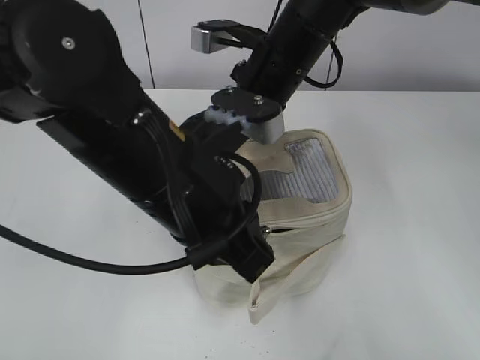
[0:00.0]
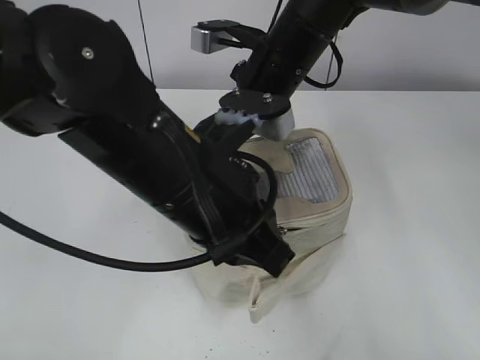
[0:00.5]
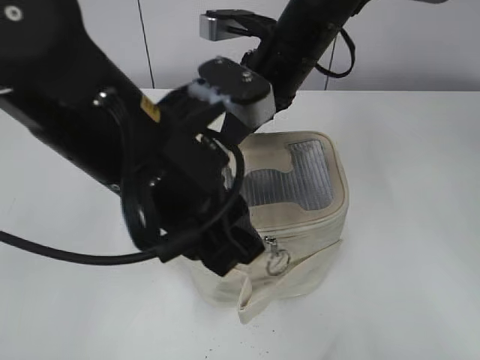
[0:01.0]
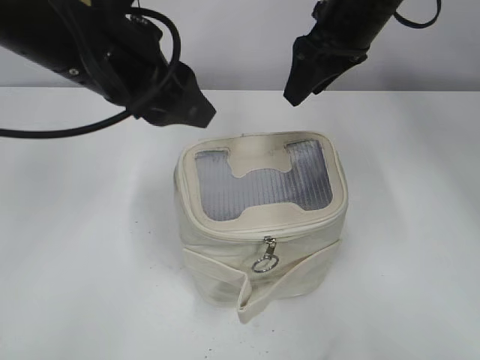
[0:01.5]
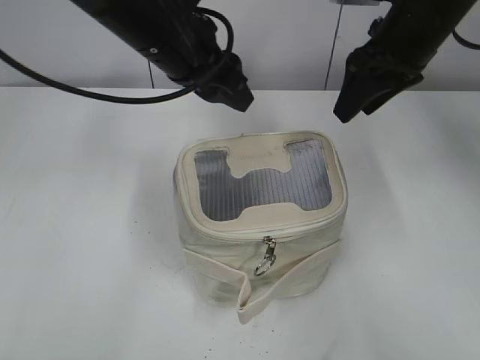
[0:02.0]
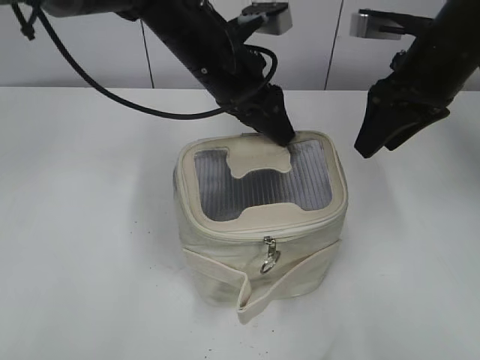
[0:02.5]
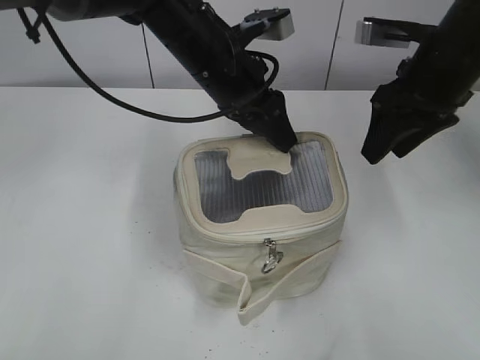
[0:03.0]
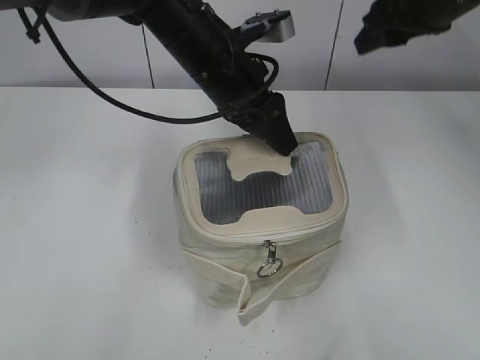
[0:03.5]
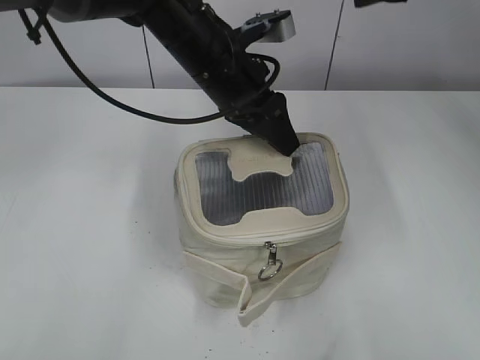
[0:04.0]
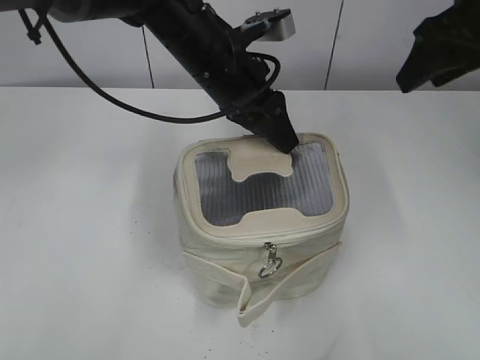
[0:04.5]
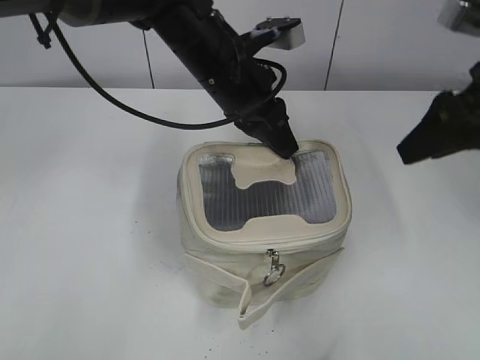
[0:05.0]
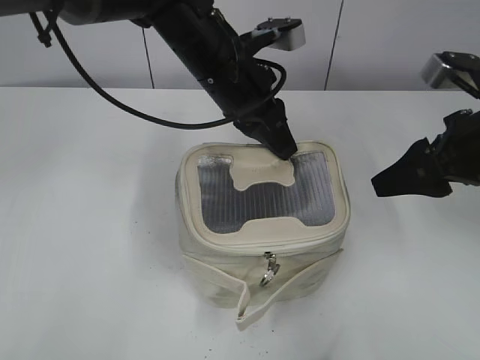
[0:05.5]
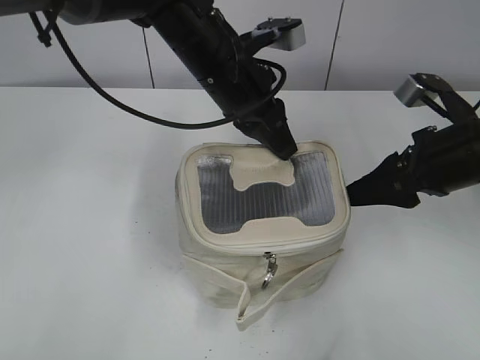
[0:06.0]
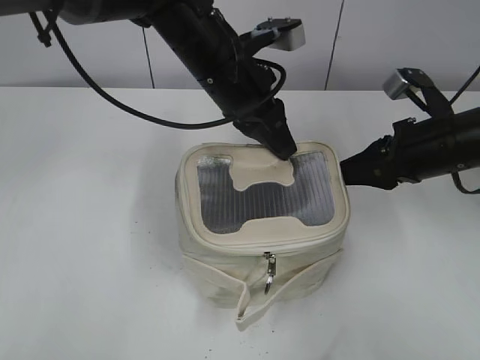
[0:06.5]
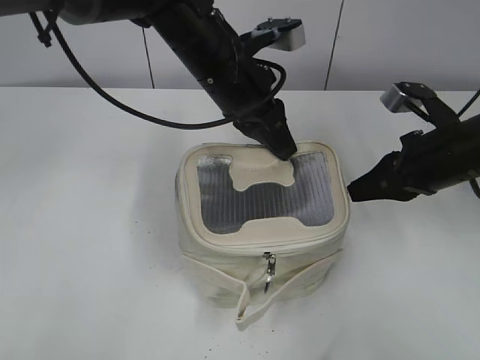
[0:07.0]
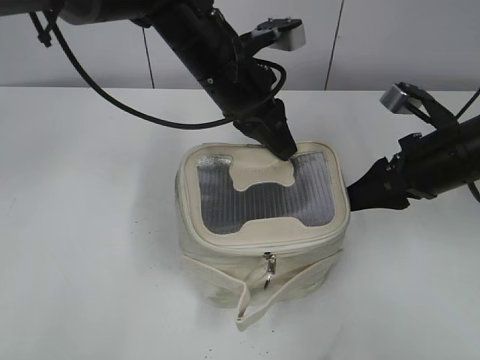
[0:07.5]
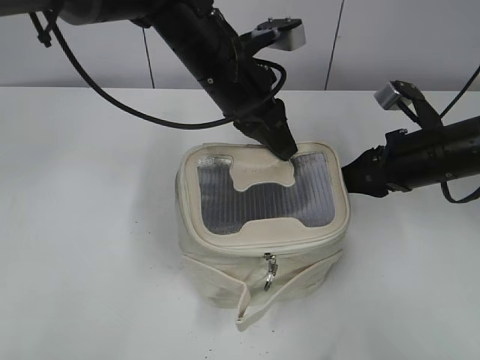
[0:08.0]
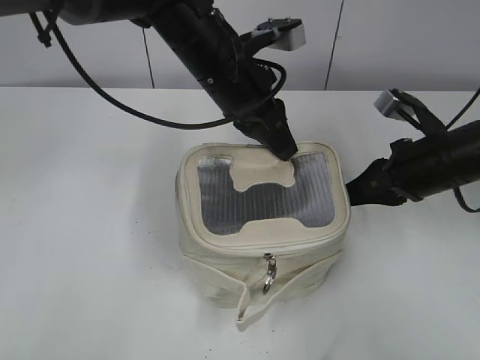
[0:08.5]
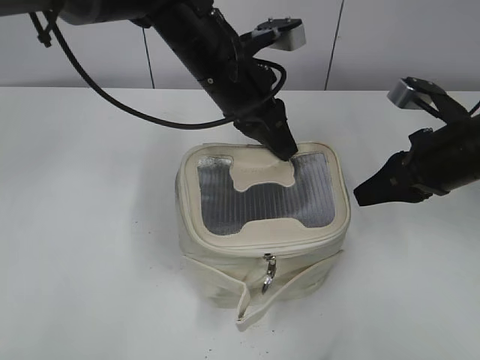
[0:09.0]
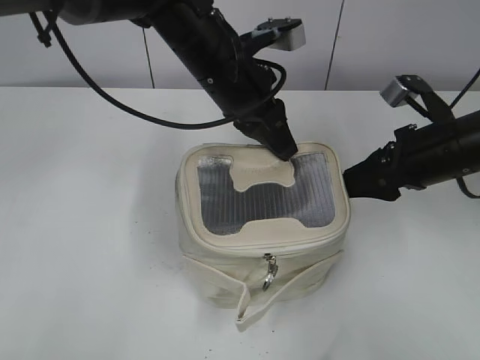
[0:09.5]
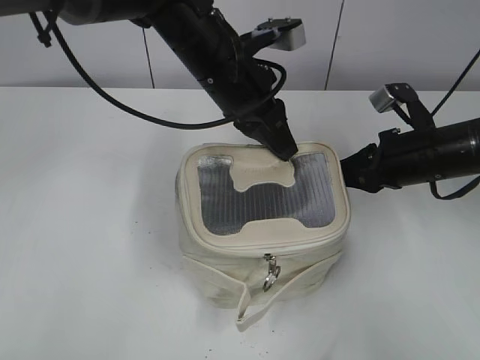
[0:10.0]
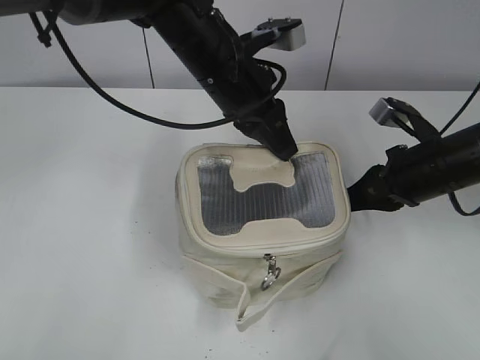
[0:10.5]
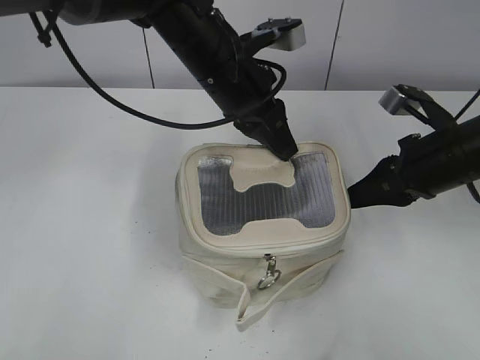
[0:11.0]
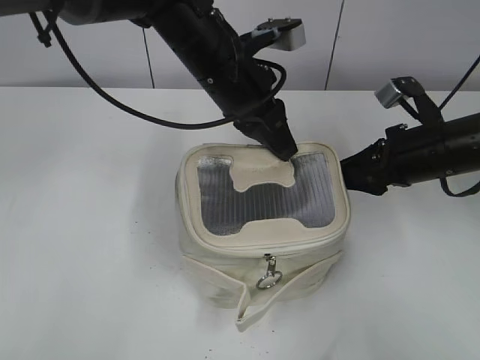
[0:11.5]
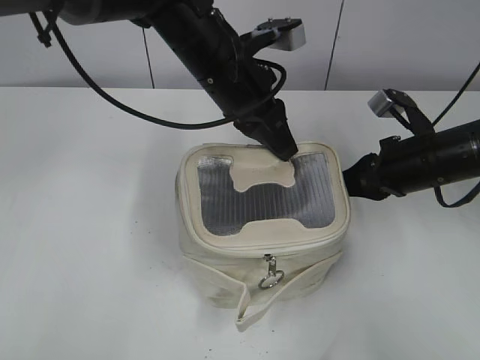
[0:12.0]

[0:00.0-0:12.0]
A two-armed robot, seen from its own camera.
0:00.0 to 0:02.0: The right gripper travels to the right by about 15 cm, and opens. Meanwhile the left gripper heads forward, covering approximately 15 cm, and opens its fingers.
0:02.0 to 0:04.0: The right gripper shifts roughly 5 cm upward, while the left gripper is displaced to the right by about 5 cm.
0:04.0 to 0:06.0: The left gripper closes up, while the right gripper shifts approximately 20 cm downward and backward.
0:06.0 to 0:08.0: The right gripper shifts by about 5 cm, and closes, then reopens.
0:08.0 to 0:10.0: The grippers move only a little.
0:10.0 to 0:12.0: The right gripper opens and closes again.

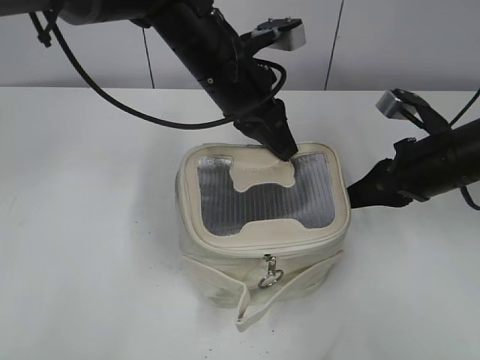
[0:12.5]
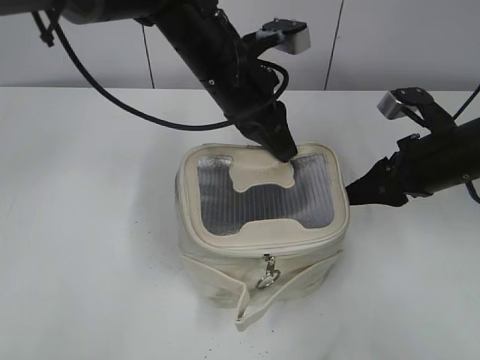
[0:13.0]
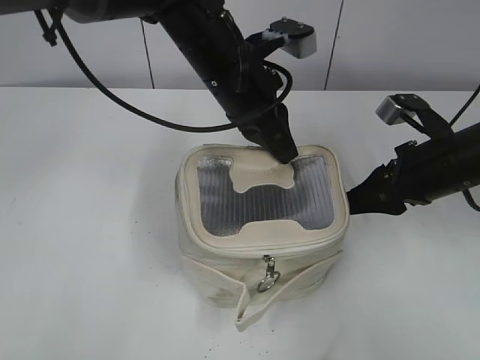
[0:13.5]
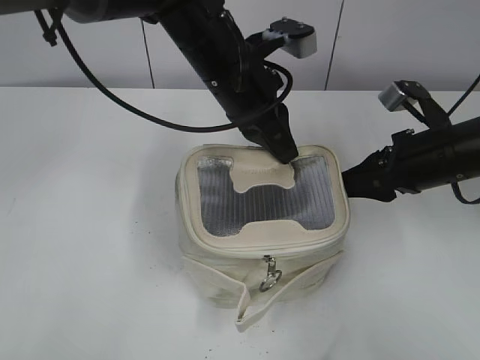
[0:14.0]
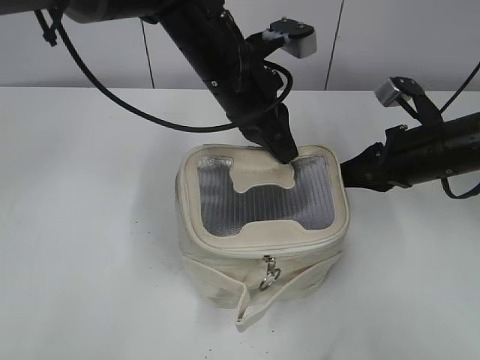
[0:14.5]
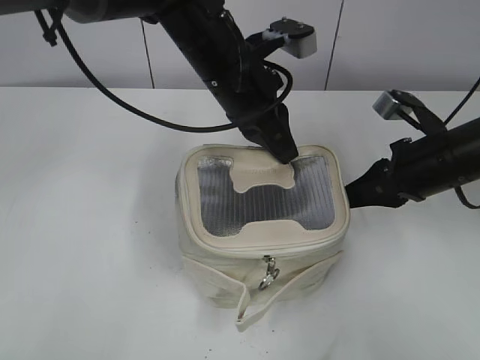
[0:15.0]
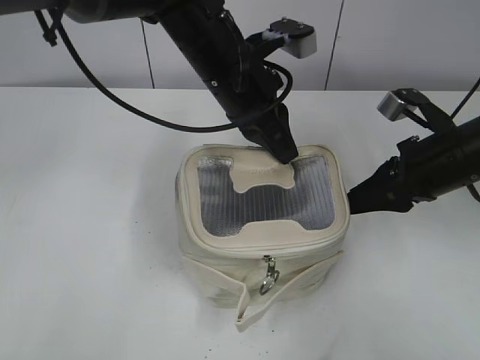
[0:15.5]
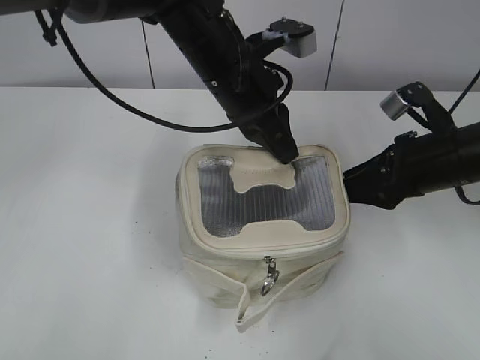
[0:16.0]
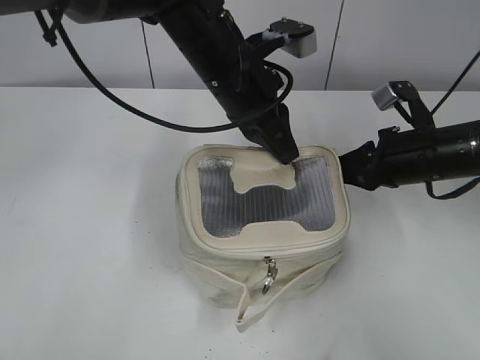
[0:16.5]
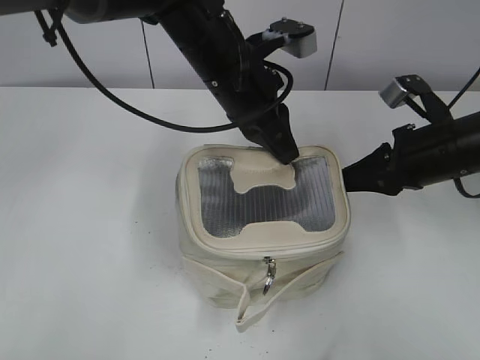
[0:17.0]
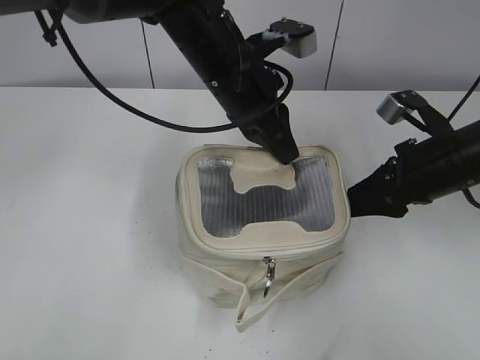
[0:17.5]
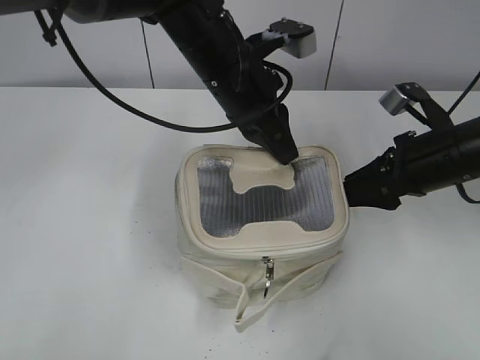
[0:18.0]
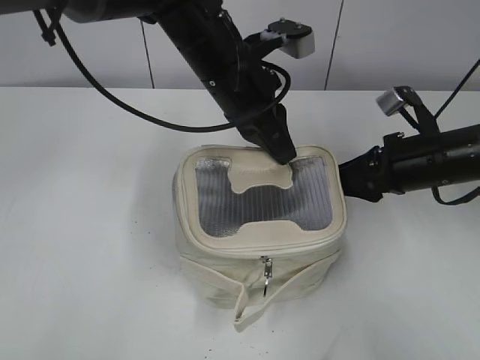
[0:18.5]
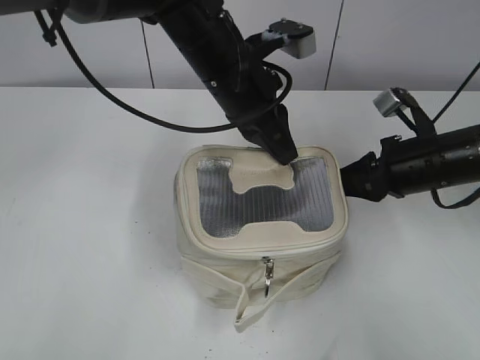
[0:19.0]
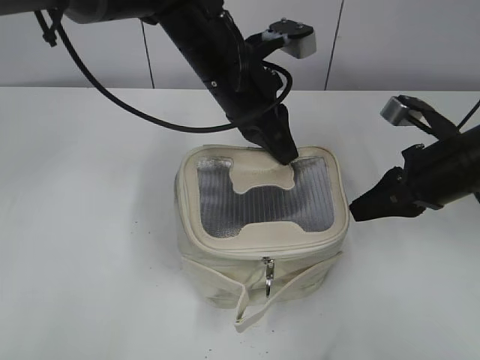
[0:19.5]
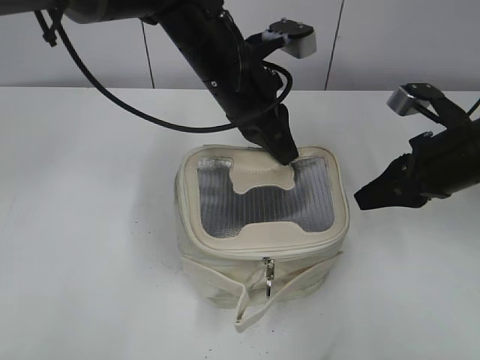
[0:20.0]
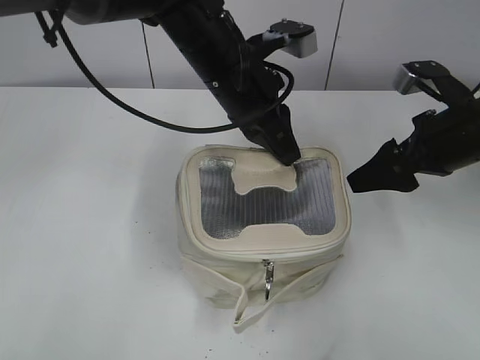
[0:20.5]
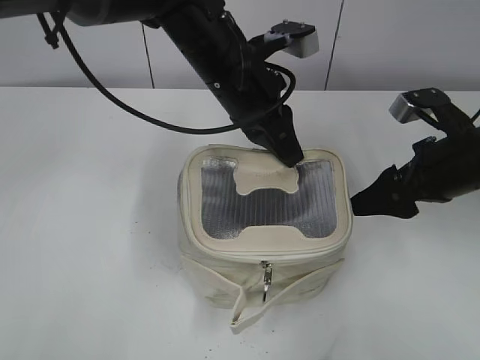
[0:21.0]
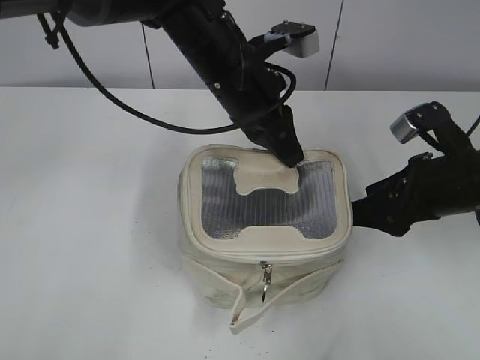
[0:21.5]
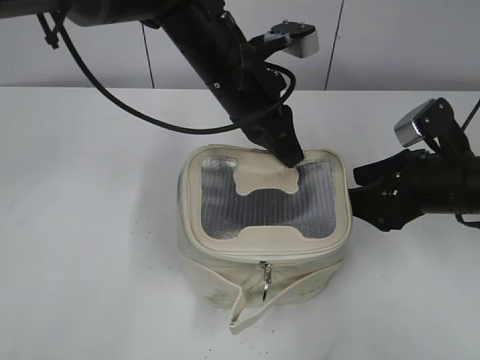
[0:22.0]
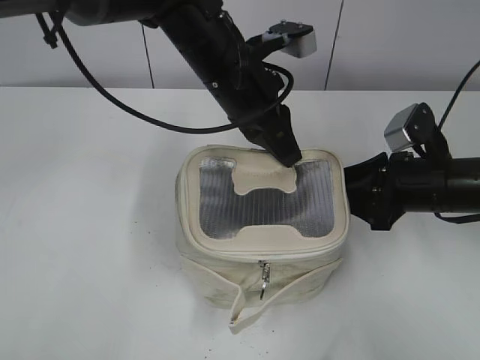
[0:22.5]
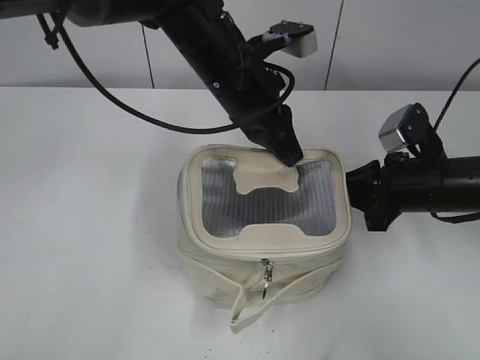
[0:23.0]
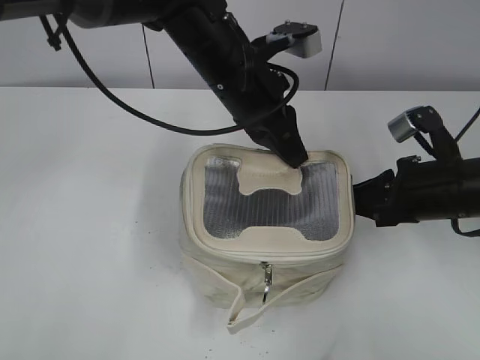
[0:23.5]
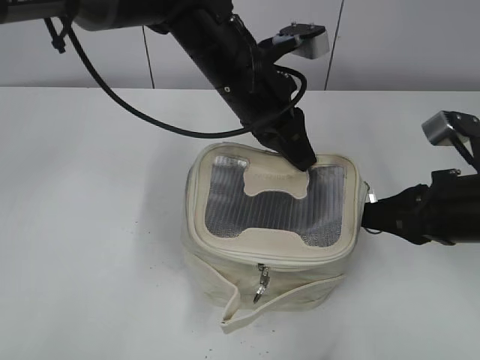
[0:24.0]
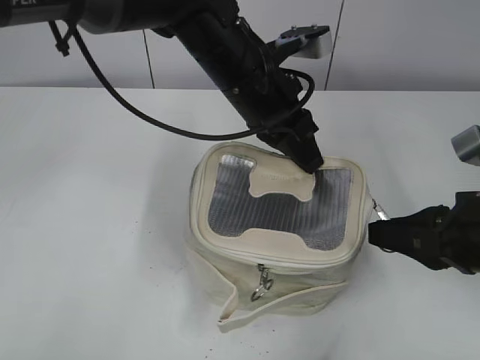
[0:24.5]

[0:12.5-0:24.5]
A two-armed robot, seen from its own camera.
0:12.5 to 0:14.5: The right gripper opens and closes again.
0:14.5 to 0:16.5: The right gripper opens, then closes again.
0:16.5 to 0:18.5: The right gripper opens.
0:18.5 to 0:20.5: The right gripper goes roughly 5 cm upward, and opens its fingers.
0:20.5 to 0:22.5: The right gripper heads downward, covering some 5 cm.
0:22.5 to 0:24.5: The right gripper travels backward by some 10 cm, and closes.

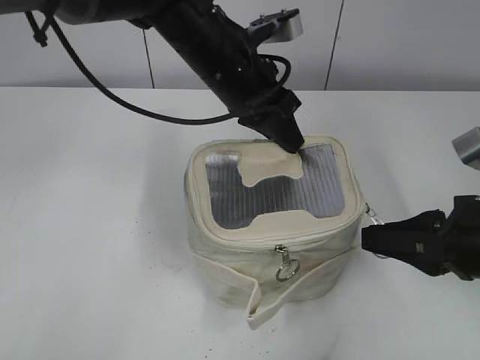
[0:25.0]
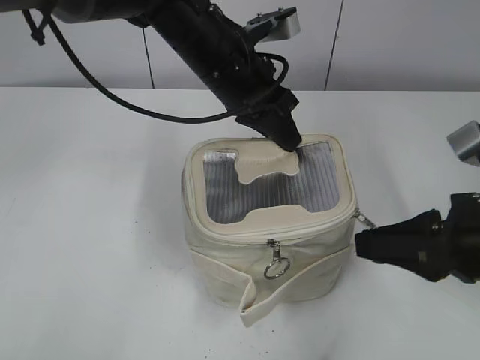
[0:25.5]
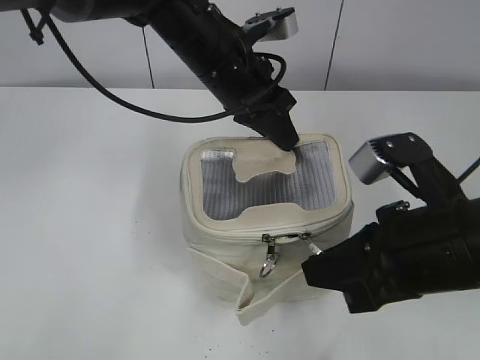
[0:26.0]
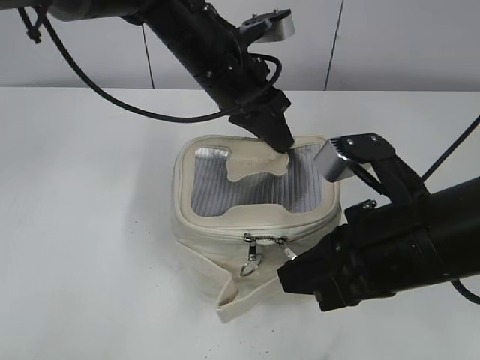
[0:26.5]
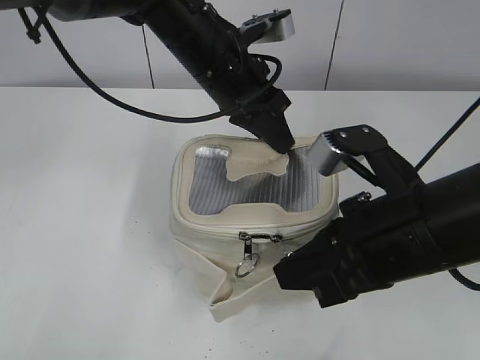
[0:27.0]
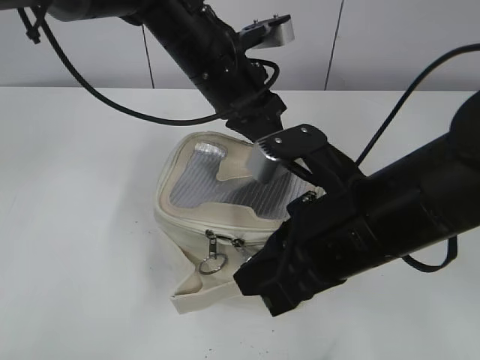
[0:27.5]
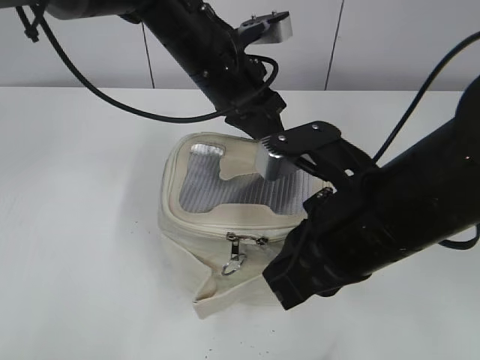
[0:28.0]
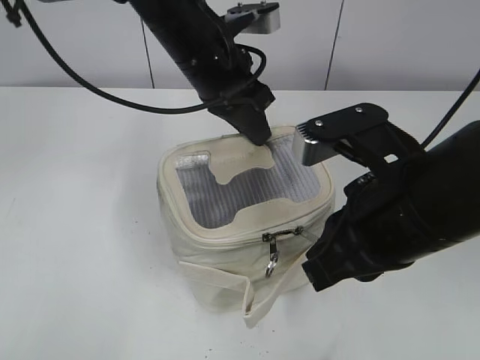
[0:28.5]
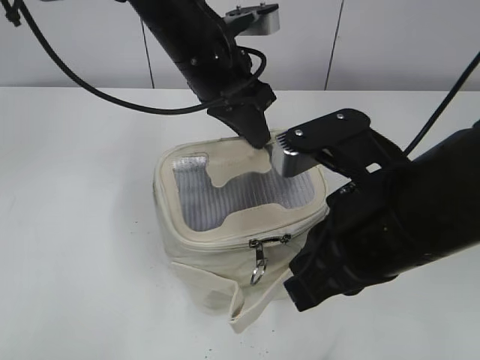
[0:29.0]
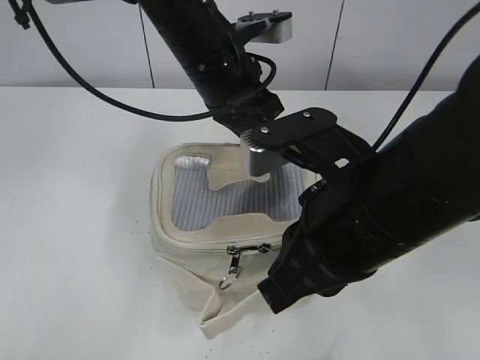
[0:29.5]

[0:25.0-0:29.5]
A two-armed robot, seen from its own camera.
0:25.0 to 0:27.0: The right gripper goes roughly 10 cm to the left.
0:27.0 to 0:29.5: The right gripper ends up some 5 cm from where it was.
